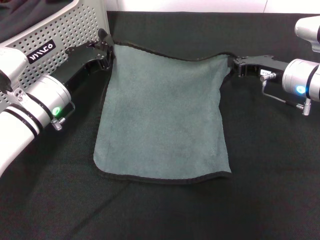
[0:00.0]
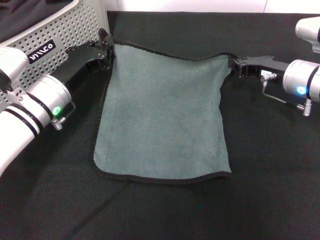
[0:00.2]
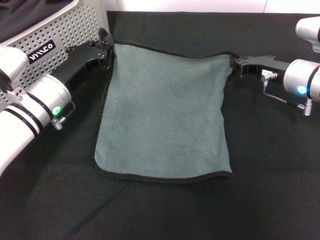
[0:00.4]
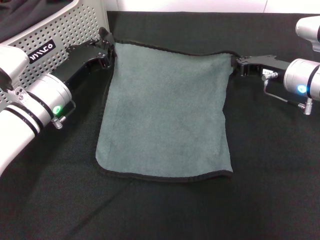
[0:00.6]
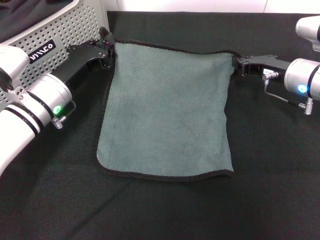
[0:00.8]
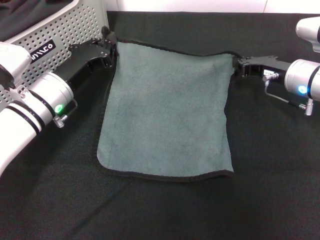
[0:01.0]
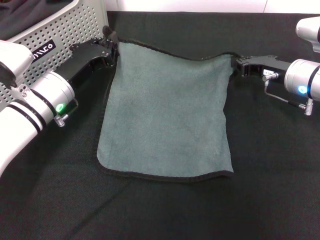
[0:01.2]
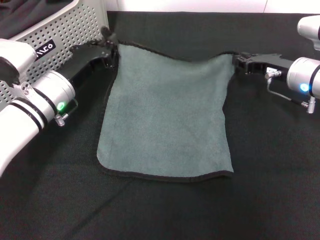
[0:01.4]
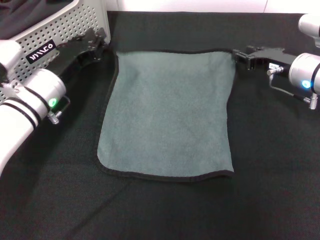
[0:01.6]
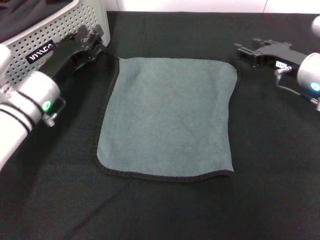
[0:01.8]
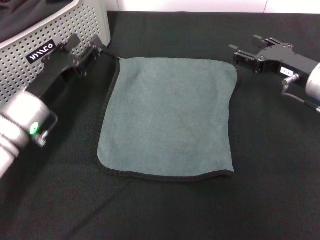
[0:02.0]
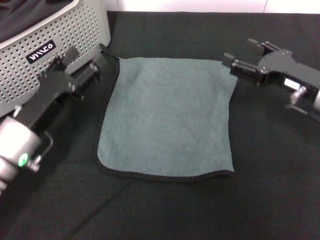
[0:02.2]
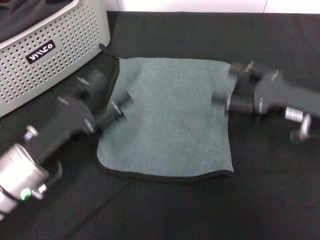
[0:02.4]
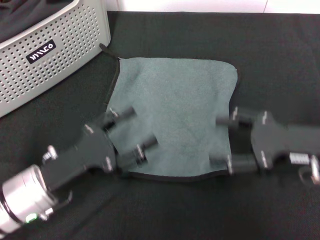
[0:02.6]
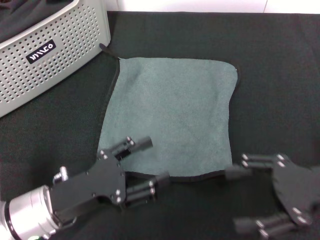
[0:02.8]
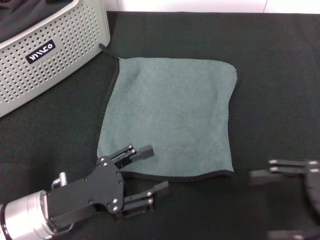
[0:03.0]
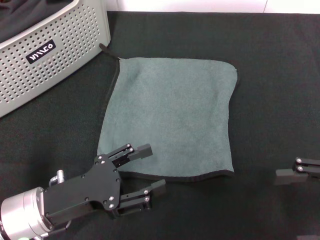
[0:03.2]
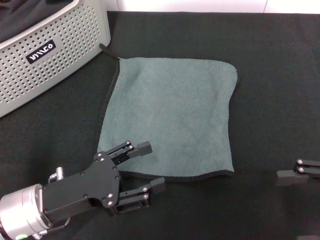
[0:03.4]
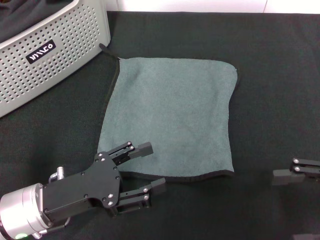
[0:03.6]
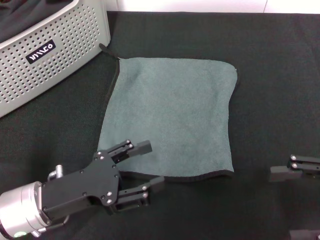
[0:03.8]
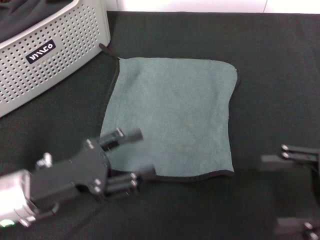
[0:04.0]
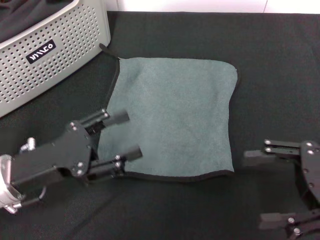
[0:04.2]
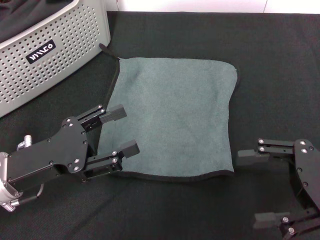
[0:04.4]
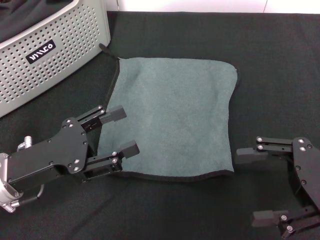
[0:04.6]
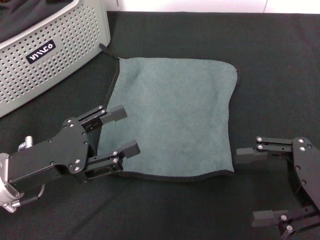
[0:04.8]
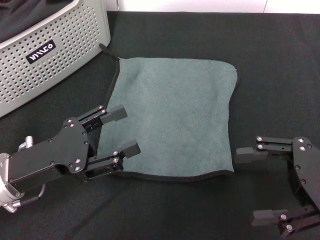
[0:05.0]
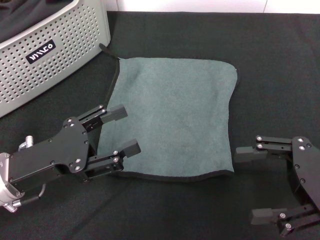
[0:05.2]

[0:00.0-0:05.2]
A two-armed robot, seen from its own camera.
Task of the whole recording: pick up the towel from the storage box and lay it flat on the black tablecloth.
0:00.0 to 0:01.8: The right gripper opens up.
0:01.8 to 0:03.4: The right gripper travels backward and to the right by approximately 20 cm, and opens. Meanwhile the left gripper shifts about 15 cm backward, and opens.
0:03.4 to 0:05.2: The right gripper ends up approximately 5 cm from where it was. Meanwhile the left gripper ends up about 5 cm from where it was.
